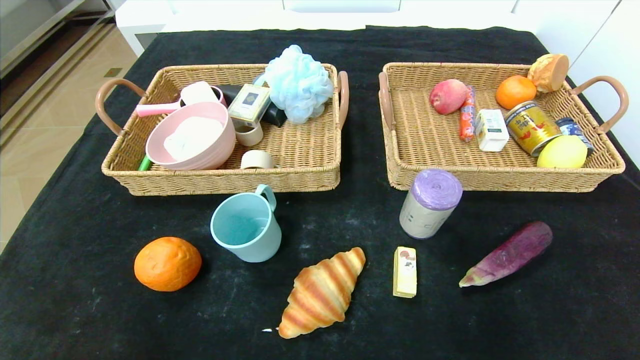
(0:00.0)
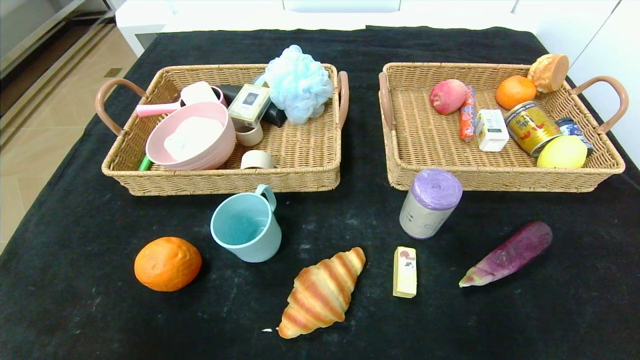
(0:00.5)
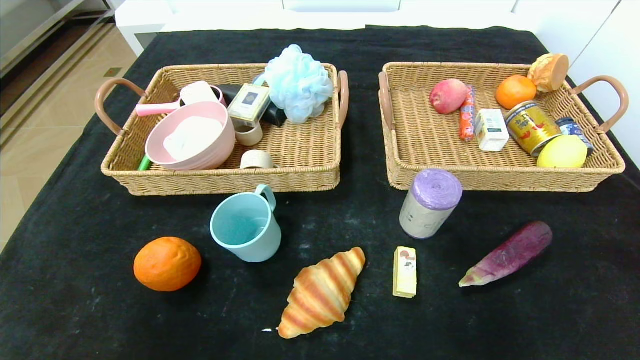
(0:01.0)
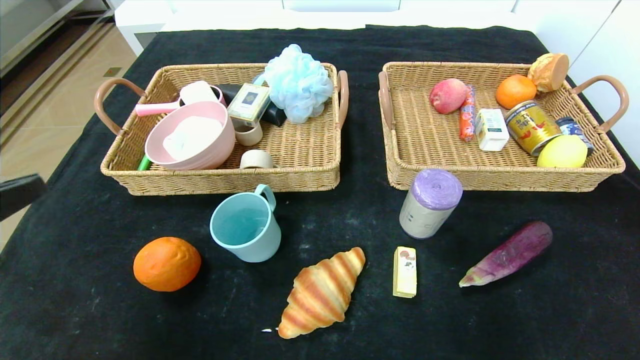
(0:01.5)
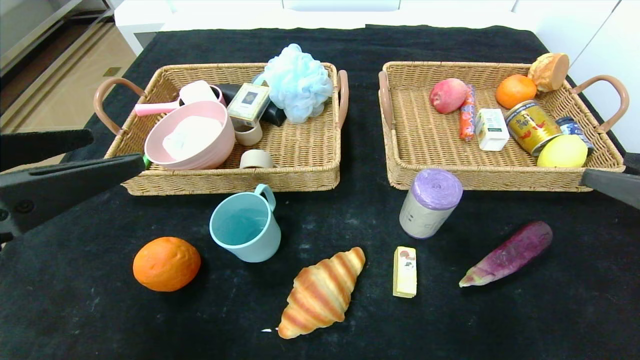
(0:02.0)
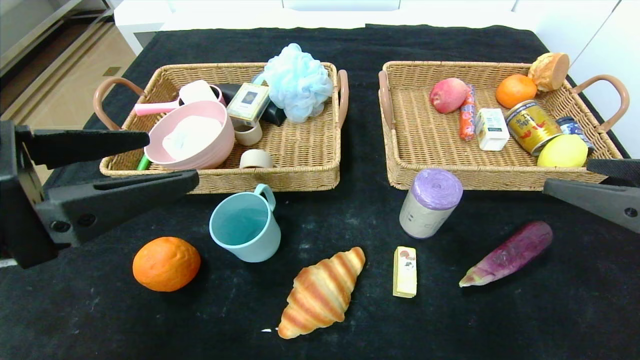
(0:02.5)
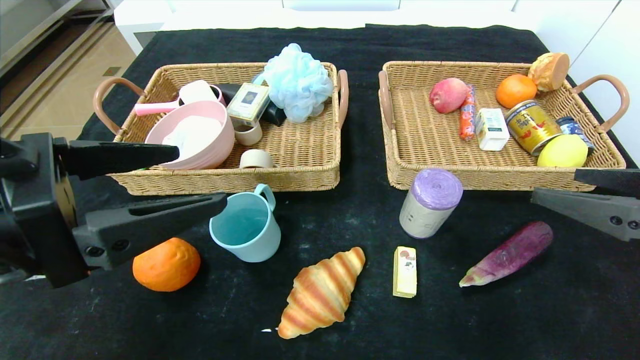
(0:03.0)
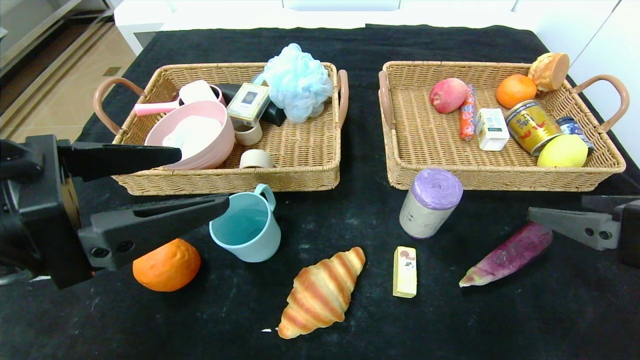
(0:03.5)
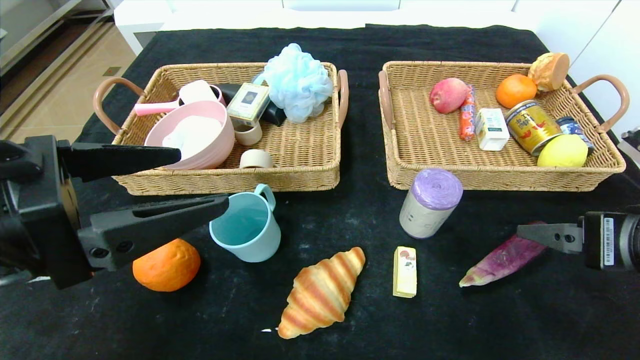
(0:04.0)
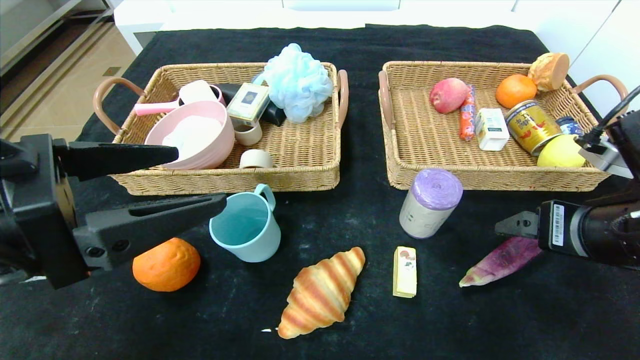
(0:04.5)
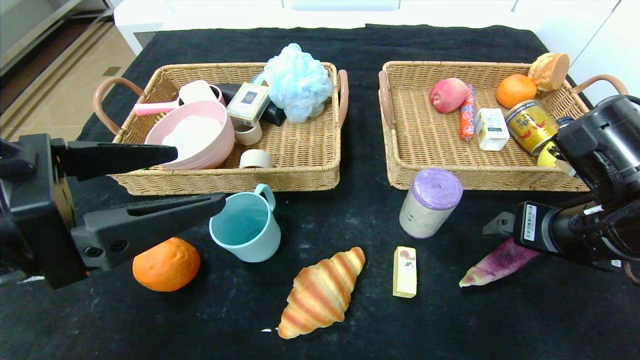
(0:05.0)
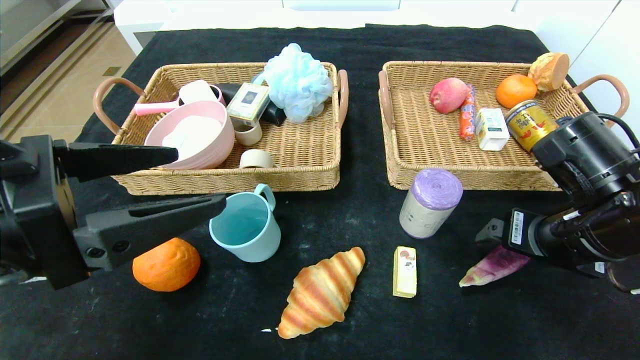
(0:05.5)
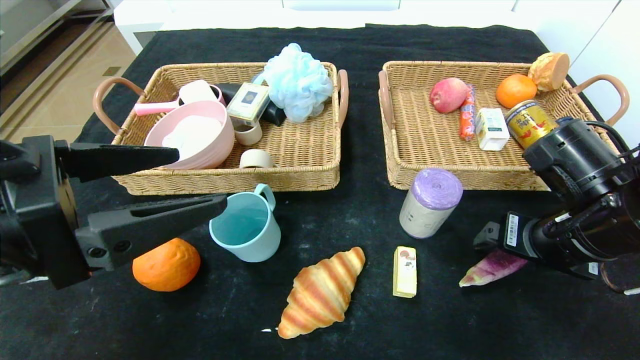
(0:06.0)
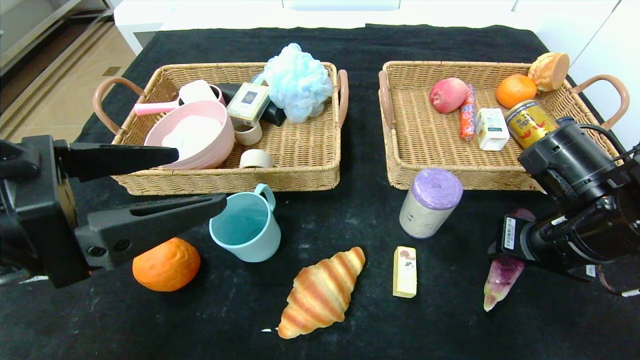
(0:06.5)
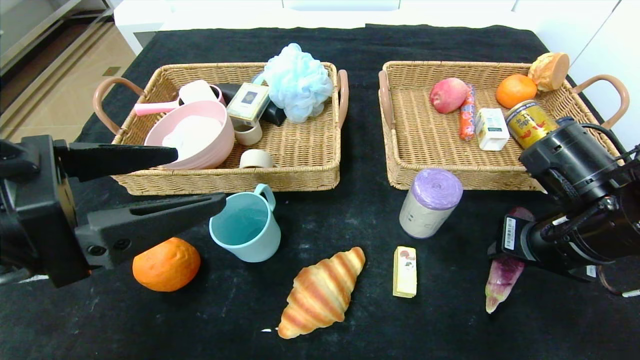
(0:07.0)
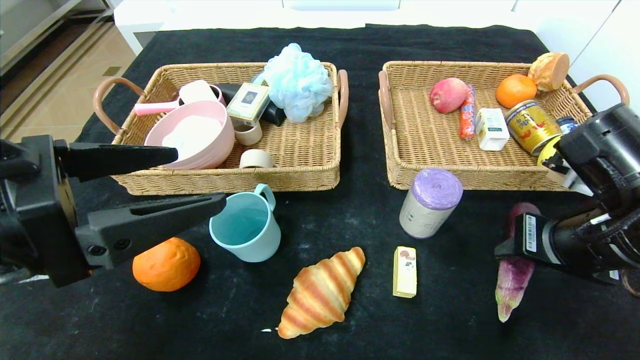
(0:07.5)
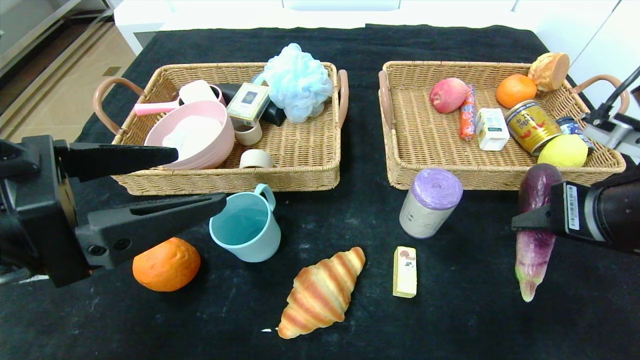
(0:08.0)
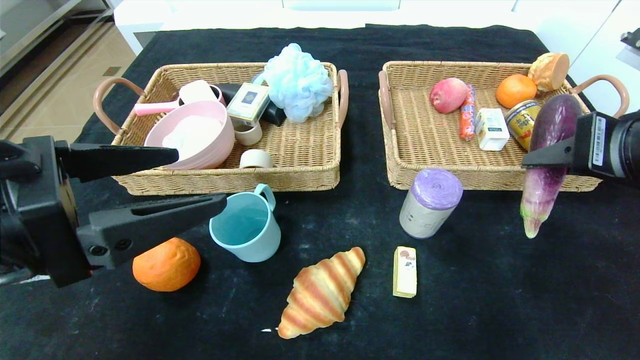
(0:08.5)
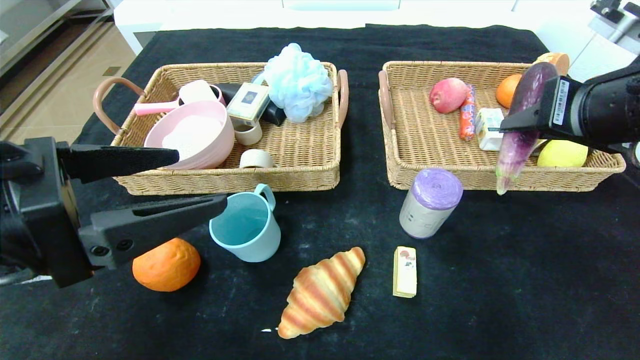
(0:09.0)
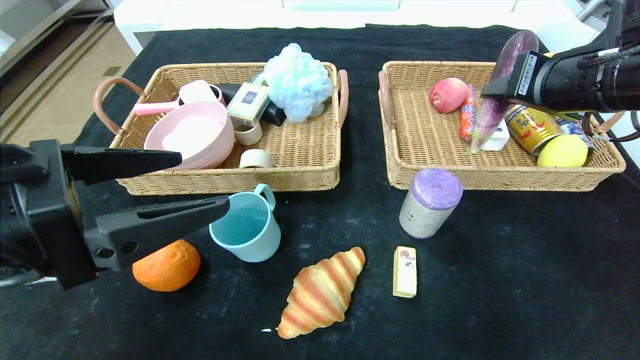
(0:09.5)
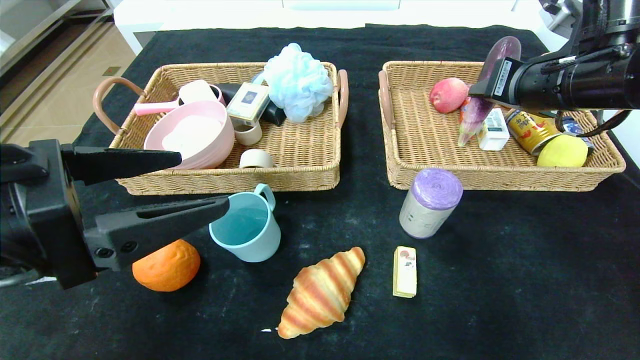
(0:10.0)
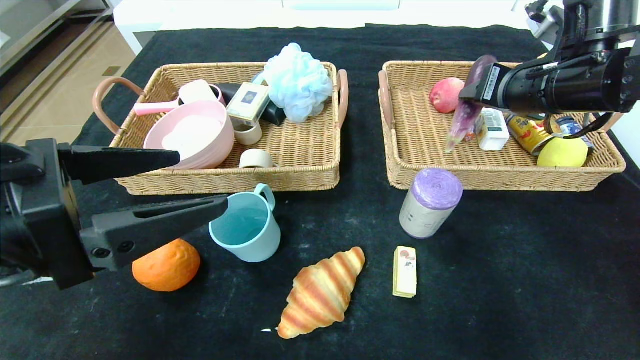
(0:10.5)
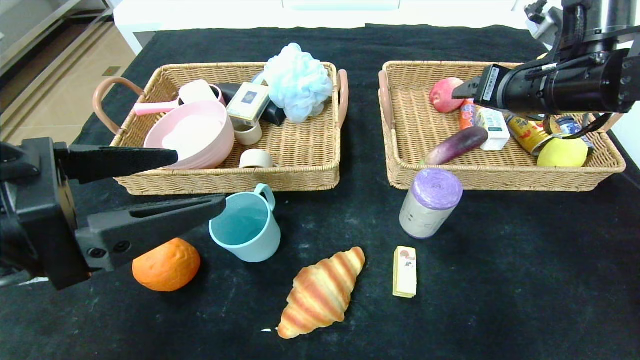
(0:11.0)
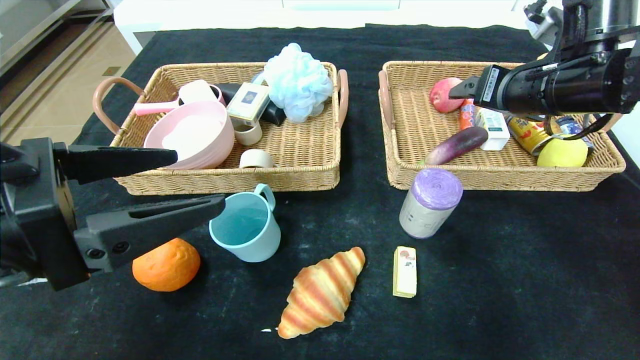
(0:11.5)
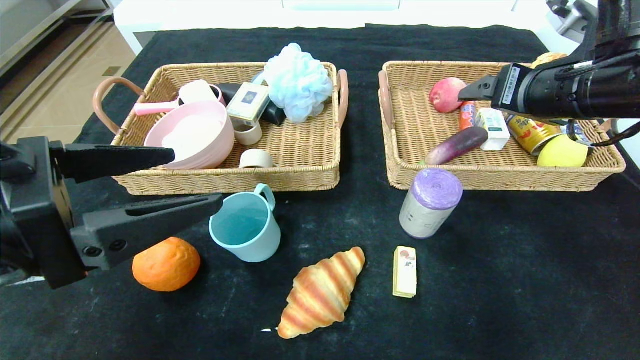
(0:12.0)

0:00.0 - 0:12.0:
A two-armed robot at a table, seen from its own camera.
Step, 0:00.0 - 0:11.5: Grasp the eggplant and put it in the right basket.
0:00.0 - 0:02.0: Both grippers move upward and forward, some 25 cm.
0:02.0 - 0:04.0: The right gripper shifts by about 5 cm.
0:04.0 - 0:06.0: The right gripper goes about 5 cm forward.
0:06.0 - 0:08.0: The right gripper heads upward, covering roughly 5 cm, and closes up.
0:08.0 - 0:10.0: The right gripper travels forward and upward by approximately 15 cm.
0:10.0 - 0:12.0: The right gripper opens its fingers.

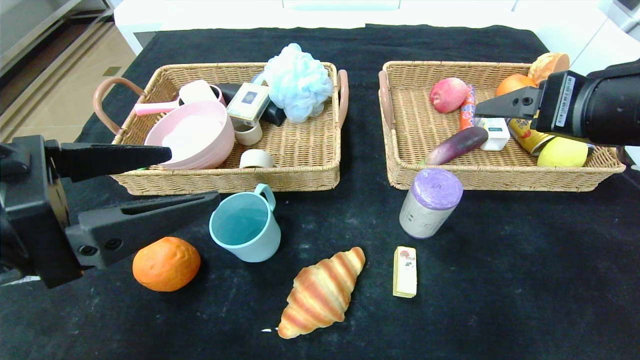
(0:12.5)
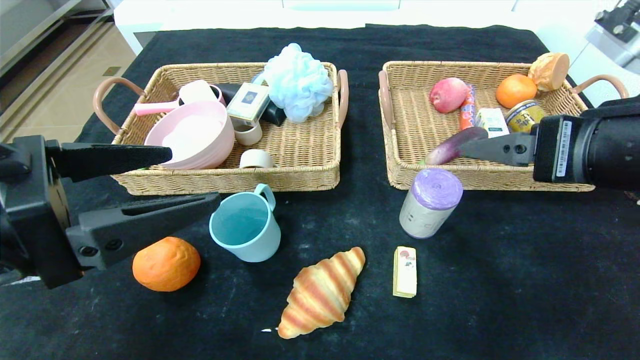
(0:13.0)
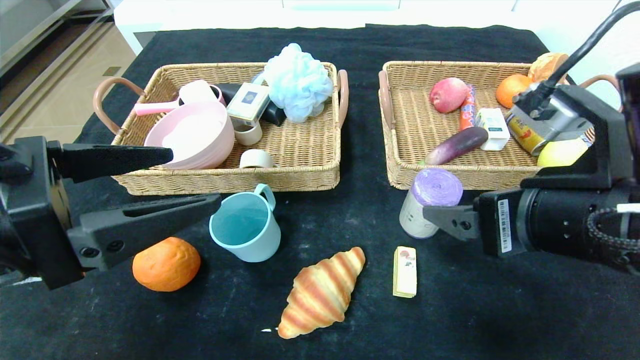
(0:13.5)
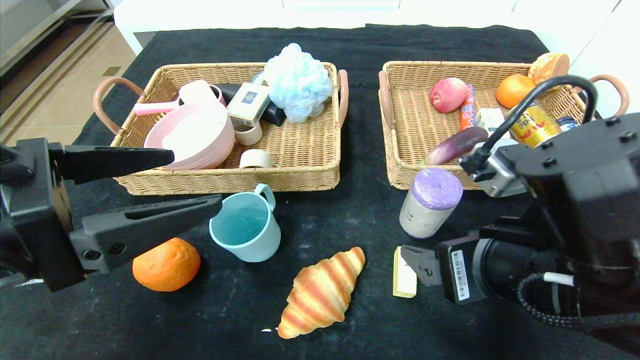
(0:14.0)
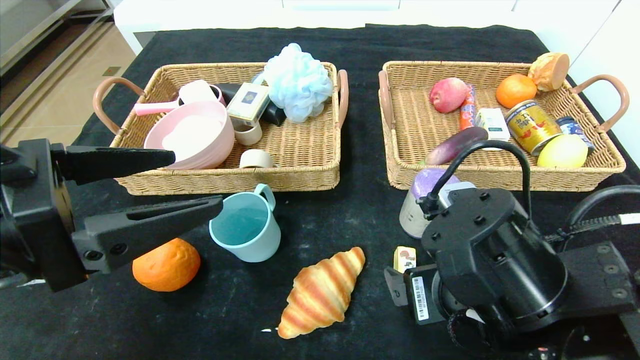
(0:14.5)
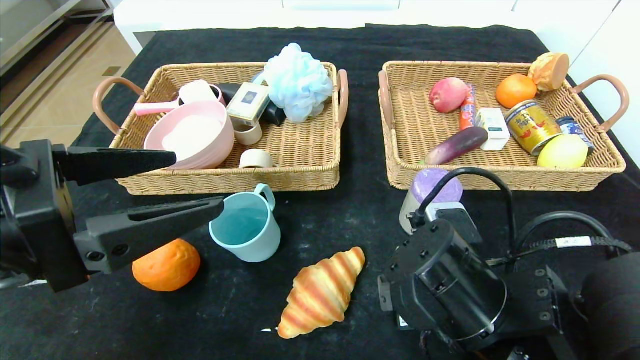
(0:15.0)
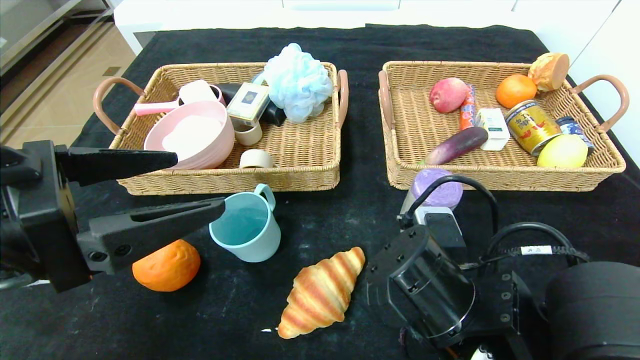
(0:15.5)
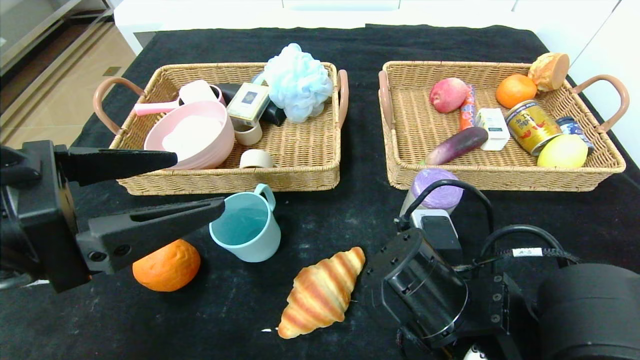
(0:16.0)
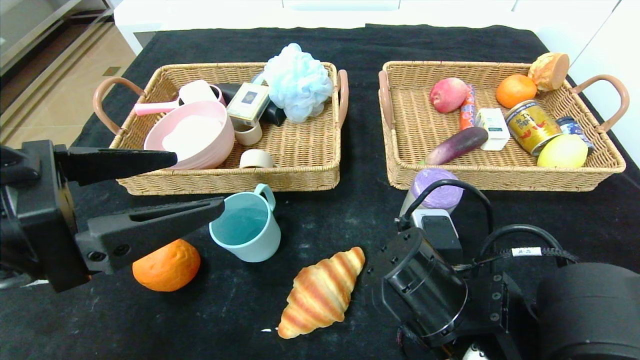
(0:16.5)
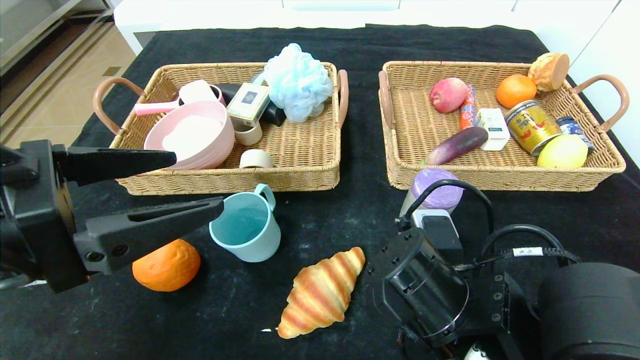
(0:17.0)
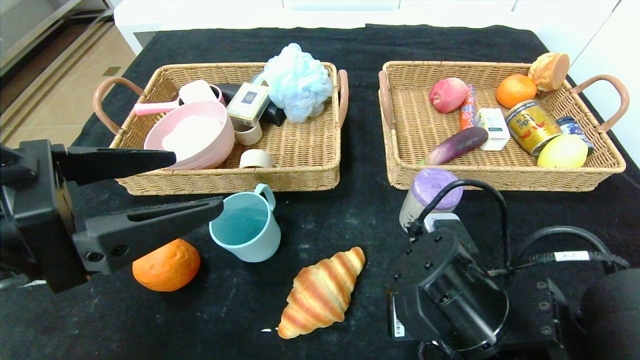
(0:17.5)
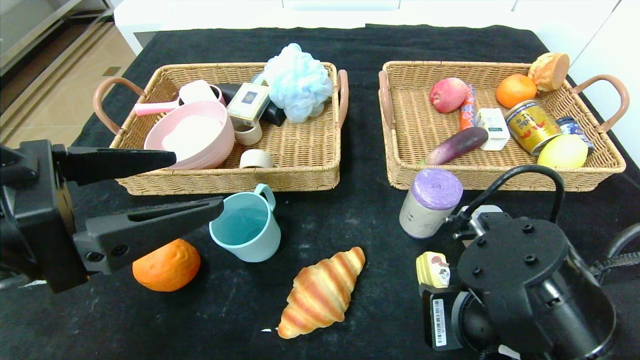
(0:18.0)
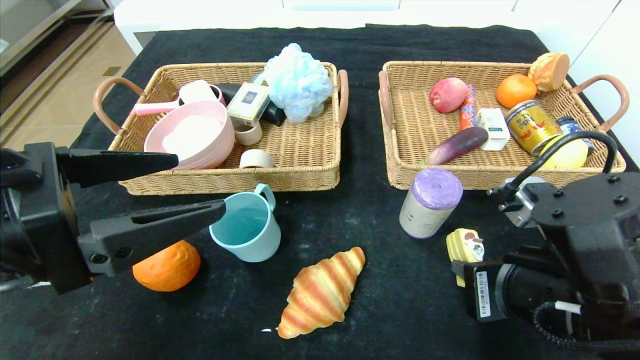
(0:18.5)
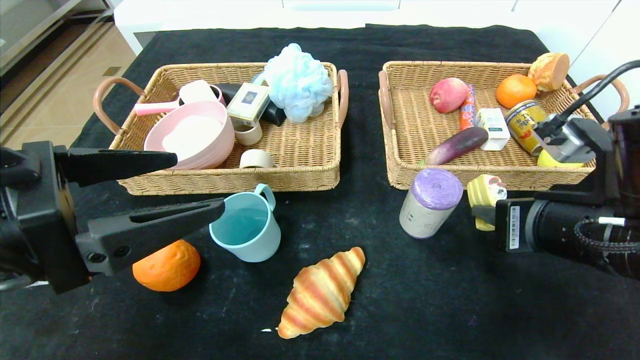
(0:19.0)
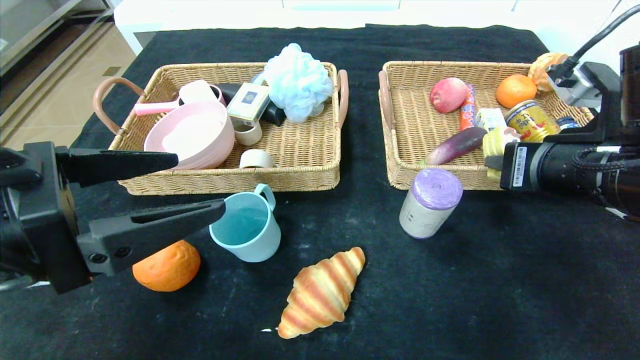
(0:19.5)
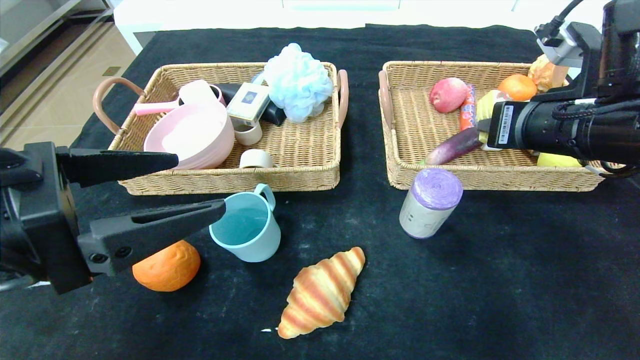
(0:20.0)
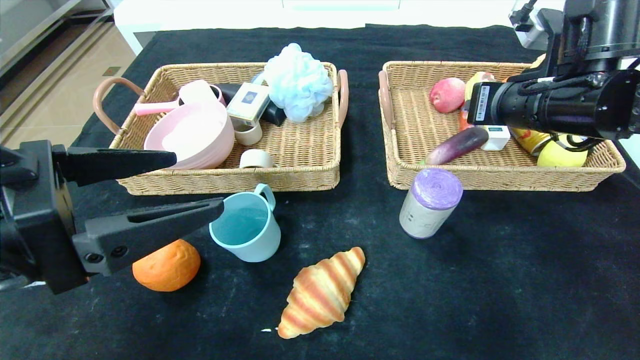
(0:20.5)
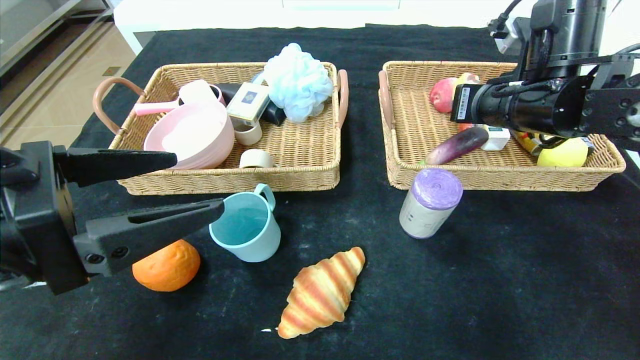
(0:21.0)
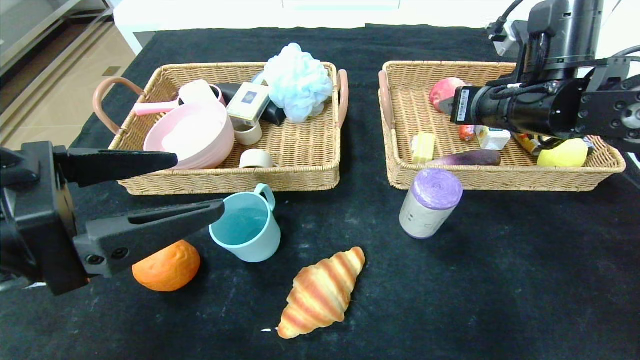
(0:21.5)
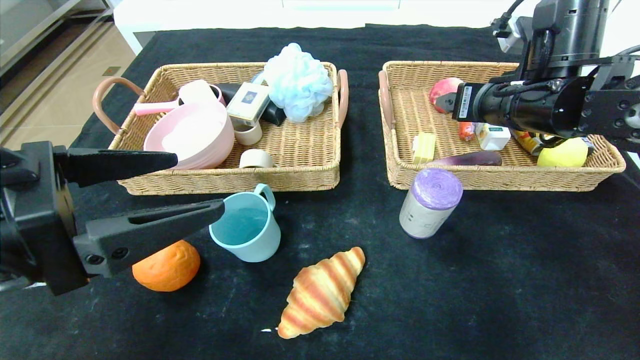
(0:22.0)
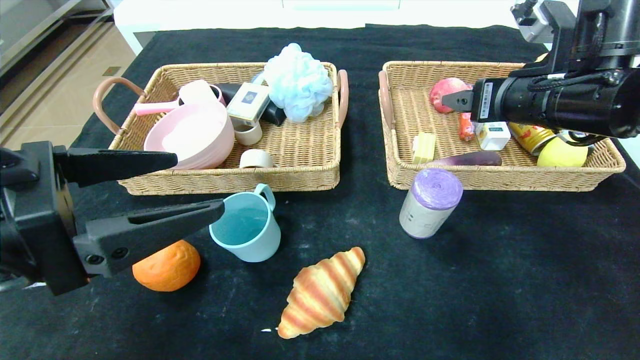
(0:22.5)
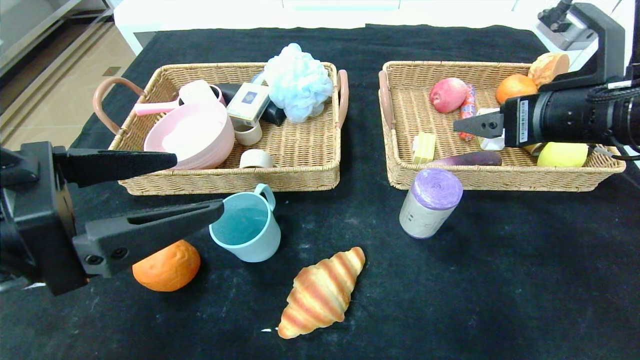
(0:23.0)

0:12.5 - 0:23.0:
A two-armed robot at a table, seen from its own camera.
Step, 0:12.5 - 0:21.5: Grasp the yellow cake and put it in the right basket.
0:12.5 - 0:14.5: The right gripper shifts approximately 20 cm downward, to the left and backward.
0:14.5 - 0:16.5: The right gripper changes place by about 5 cm, and closes its fingers.
0:16.5 - 0:19.0: The right gripper moves to the right and upward, approximately 15 cm.
0:19.0 - 0:21.0: The right gripper moves forward and upward, about 15 cm.
0:21.0 - 0:23.0: The right gripper is displaced backward by about 10 cm, and opens up.
